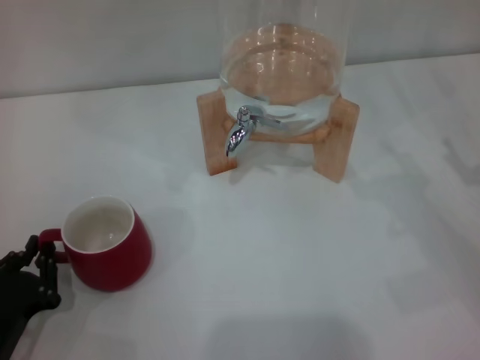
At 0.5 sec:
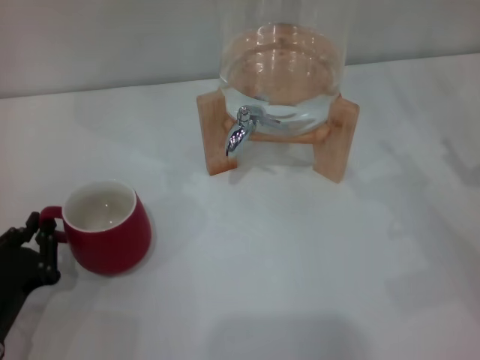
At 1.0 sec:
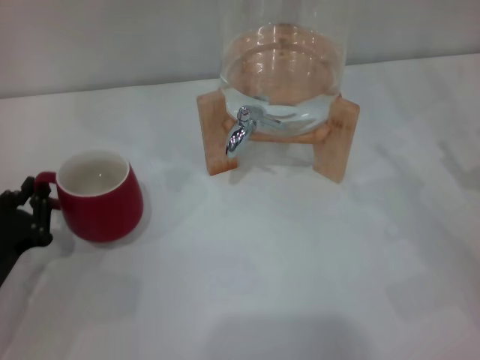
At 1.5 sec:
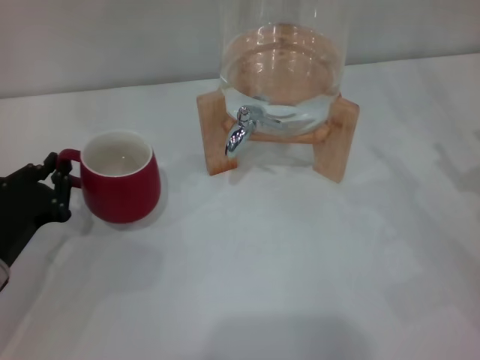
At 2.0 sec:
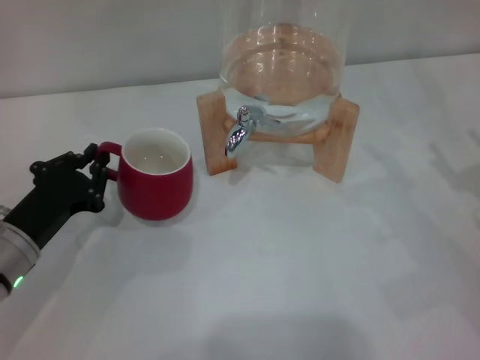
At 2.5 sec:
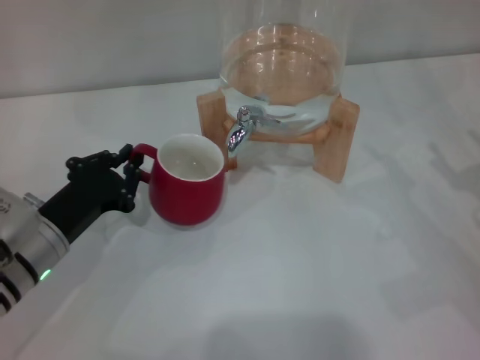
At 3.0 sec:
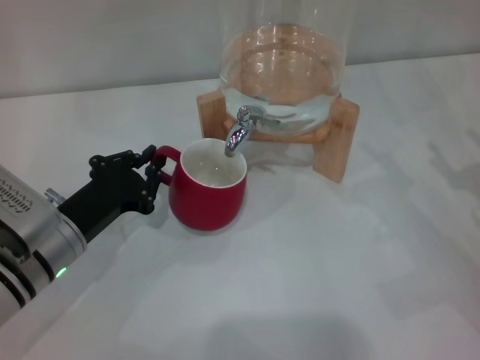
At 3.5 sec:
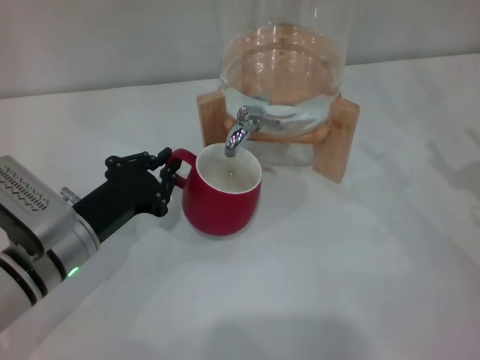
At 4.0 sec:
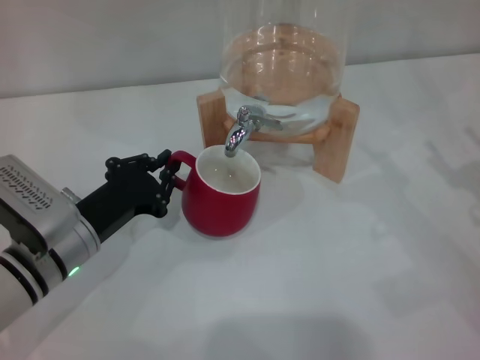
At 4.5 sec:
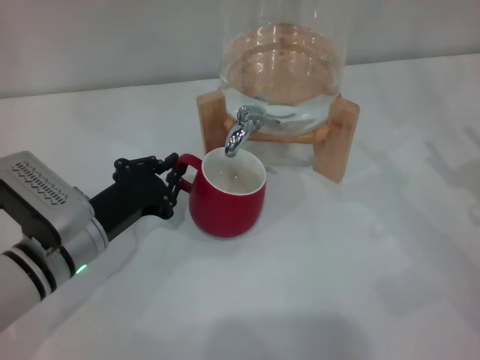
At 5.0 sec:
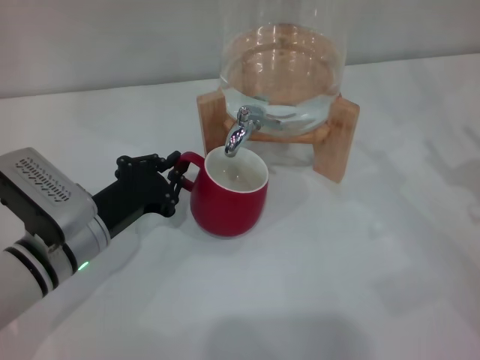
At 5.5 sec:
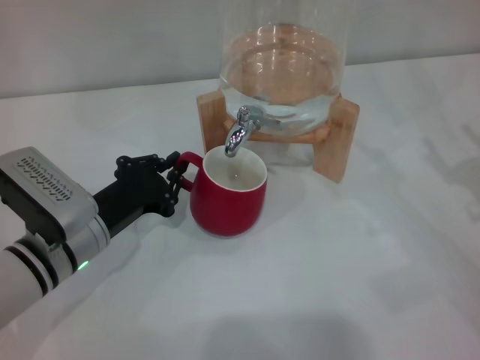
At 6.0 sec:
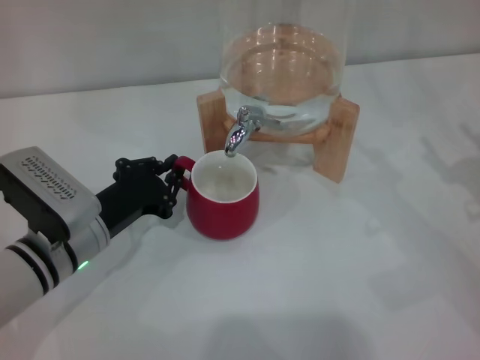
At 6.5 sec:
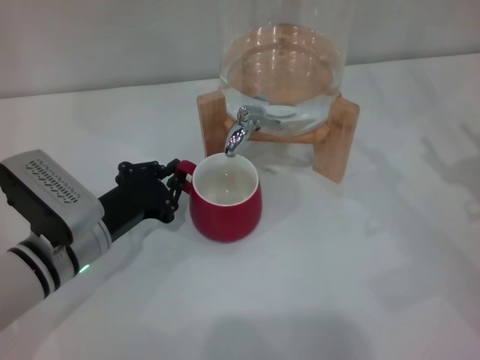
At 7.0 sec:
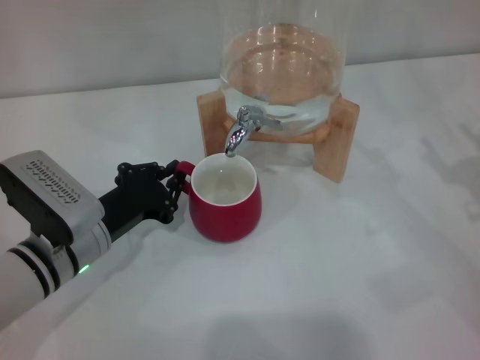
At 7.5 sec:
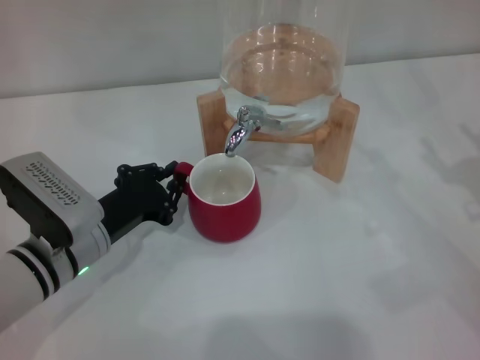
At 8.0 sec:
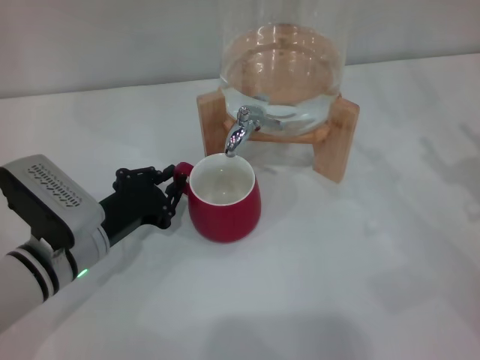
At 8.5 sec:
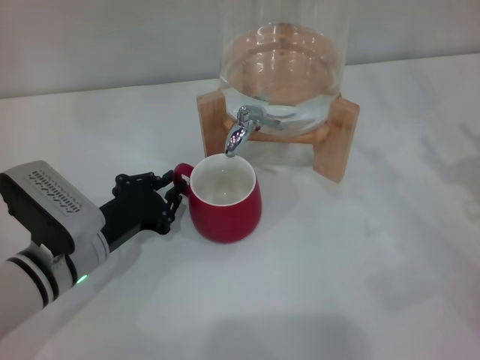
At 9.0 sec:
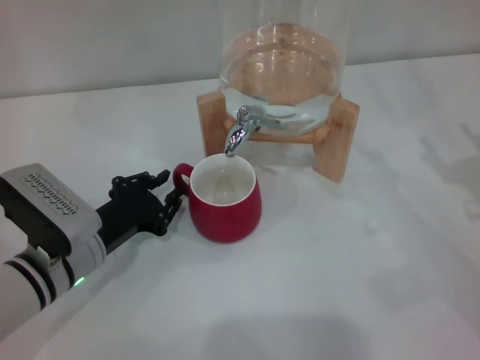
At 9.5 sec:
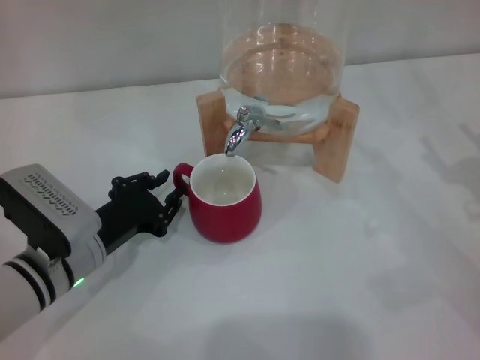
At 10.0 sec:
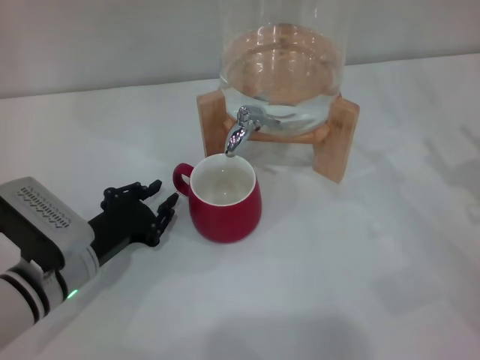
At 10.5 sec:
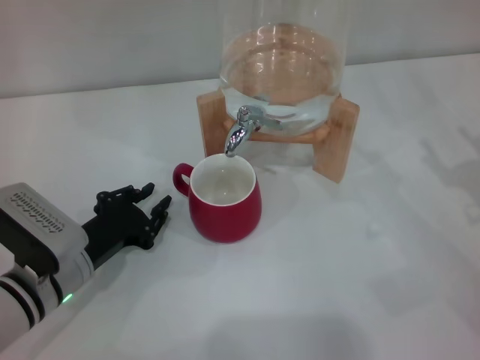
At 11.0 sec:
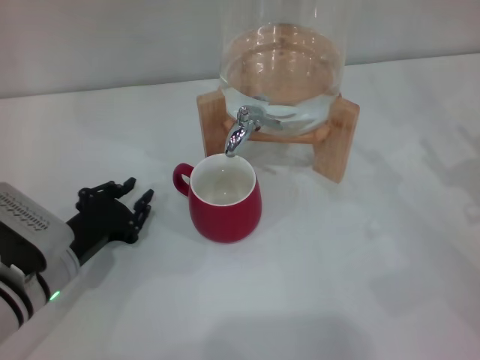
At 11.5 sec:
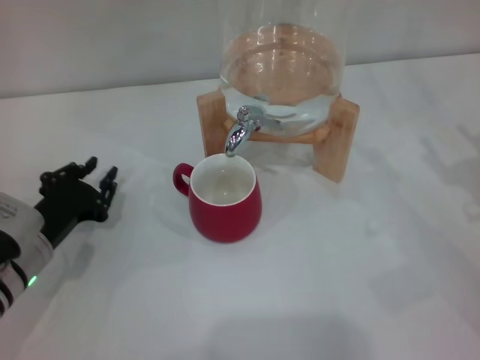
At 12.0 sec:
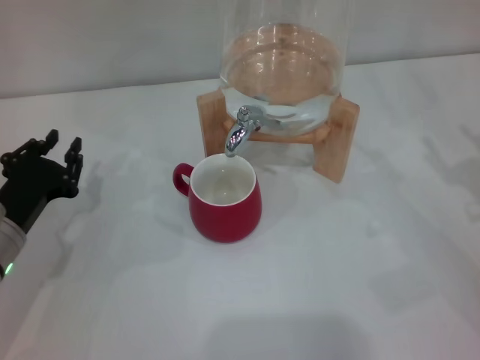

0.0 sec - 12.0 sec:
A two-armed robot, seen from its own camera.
Task of the whole recording: the left gripper pick up the red cup and place it horizontally under the faucet, the right gripper turn on the faucet to fill the cup, and then turn off the faucet.
Step, 0.0 sec - 9.5 sec: Move the cup beneath the water dispenser nozzle with the left gripper.
0.0 sec - 2.0 sec: The left gripper travels forward by roughly 10 cm.
2.0 sec - 4.0 sec: The left gripper travels to the right by approximately 5 cm.
4.0 sec - 6.0 sec: The grippers make only small movements.
6.0 sec - 8.0 sec: Both grippers stay put.
8.0 sec - 10.0 sec: The grippers stay close to where they were, moving slightly.
10.0 sec - 12.0 sec: The left gripper goes some 5 cm to the left.

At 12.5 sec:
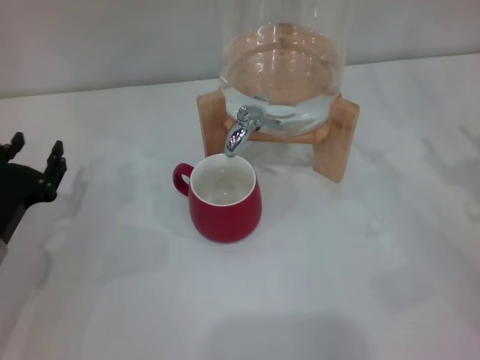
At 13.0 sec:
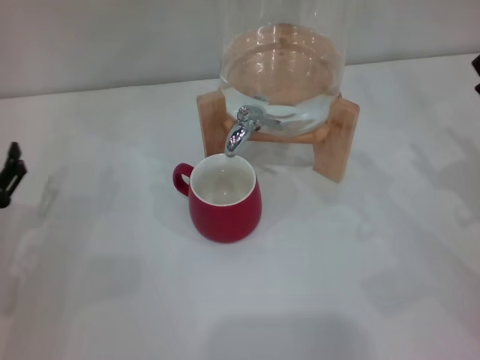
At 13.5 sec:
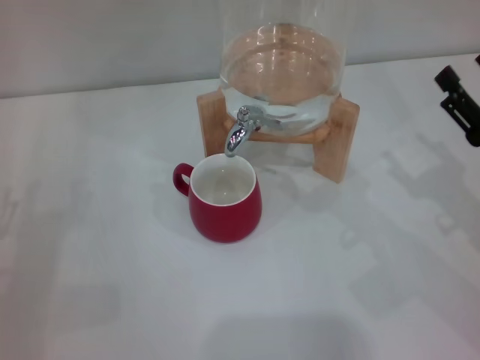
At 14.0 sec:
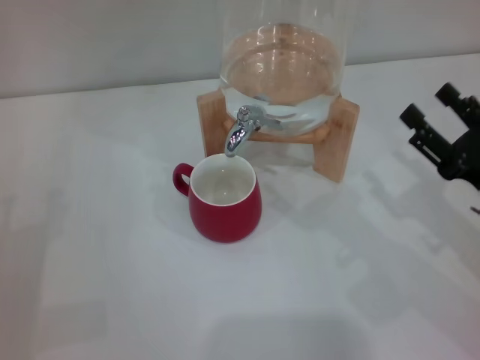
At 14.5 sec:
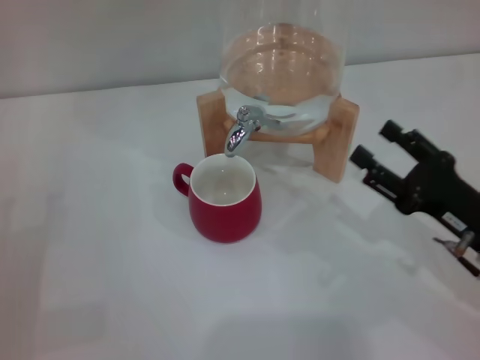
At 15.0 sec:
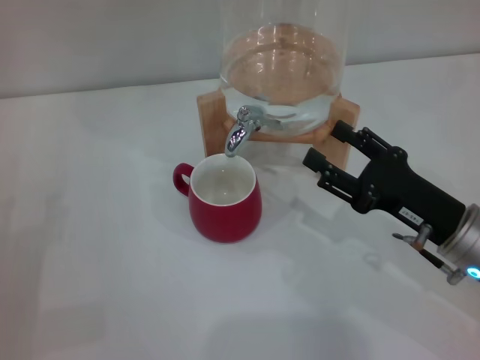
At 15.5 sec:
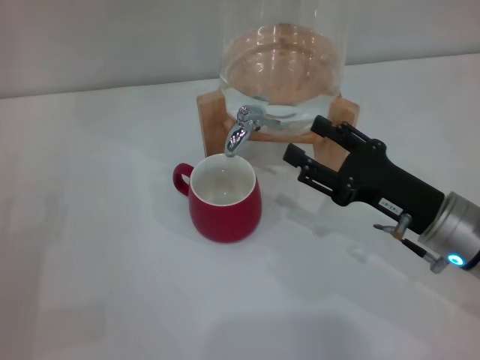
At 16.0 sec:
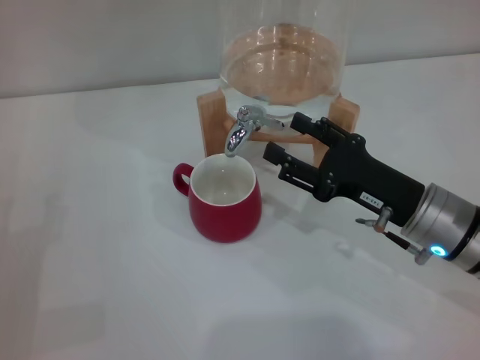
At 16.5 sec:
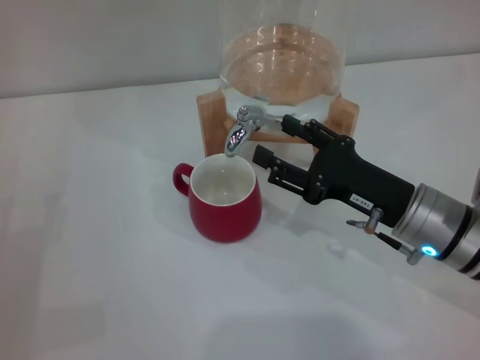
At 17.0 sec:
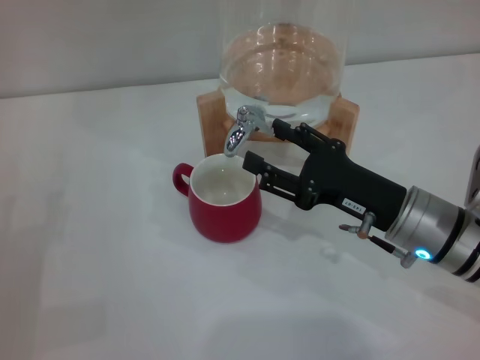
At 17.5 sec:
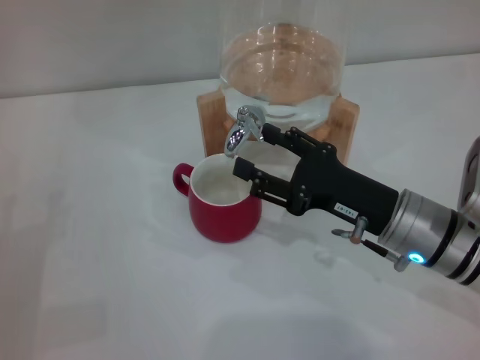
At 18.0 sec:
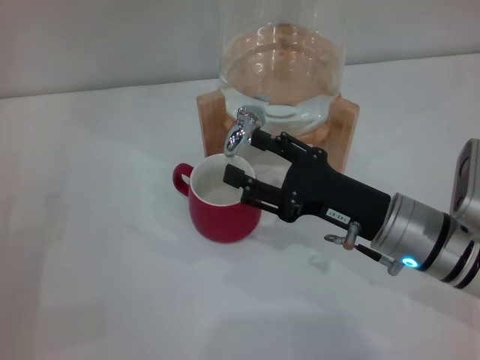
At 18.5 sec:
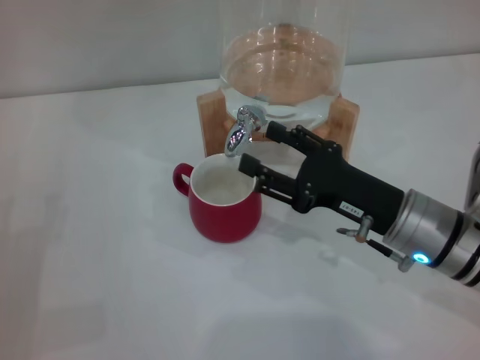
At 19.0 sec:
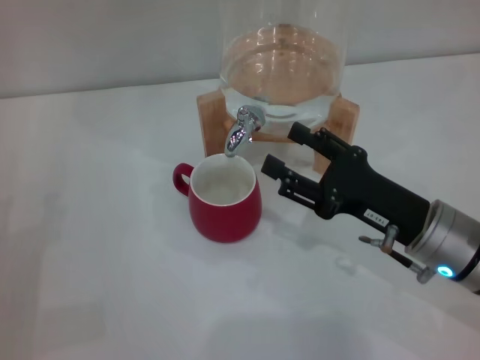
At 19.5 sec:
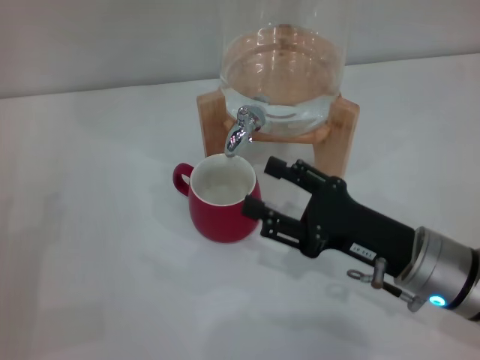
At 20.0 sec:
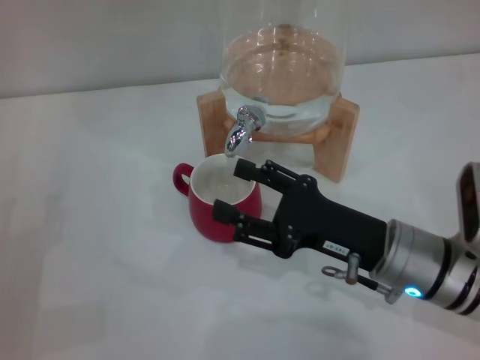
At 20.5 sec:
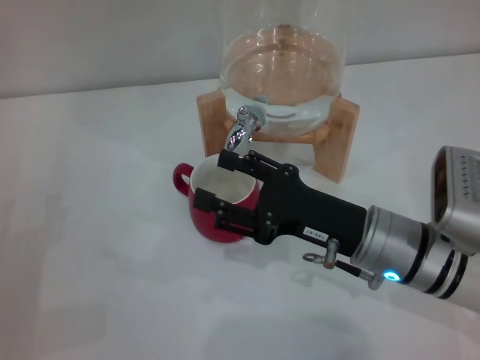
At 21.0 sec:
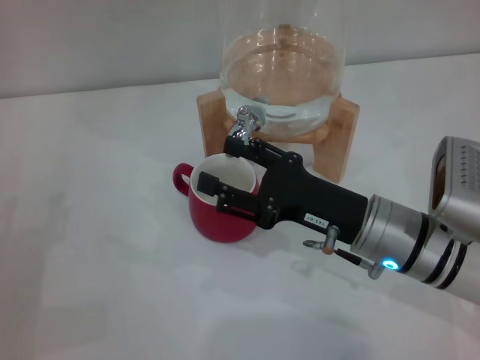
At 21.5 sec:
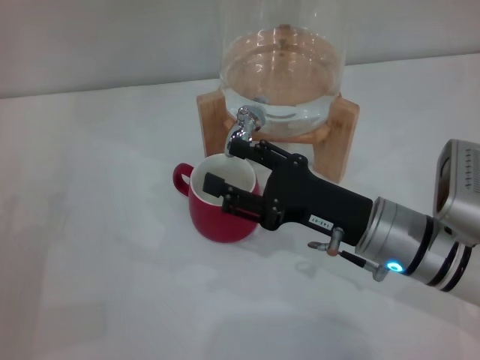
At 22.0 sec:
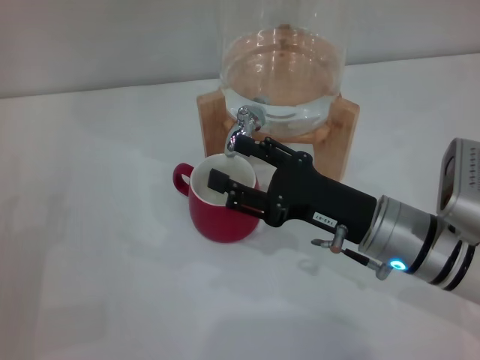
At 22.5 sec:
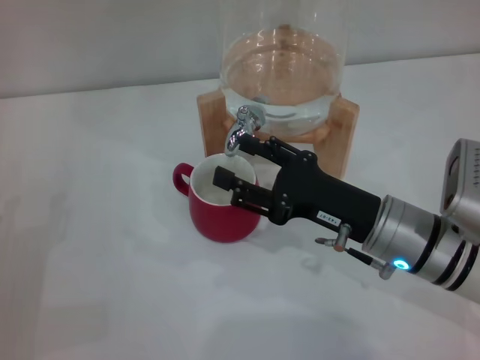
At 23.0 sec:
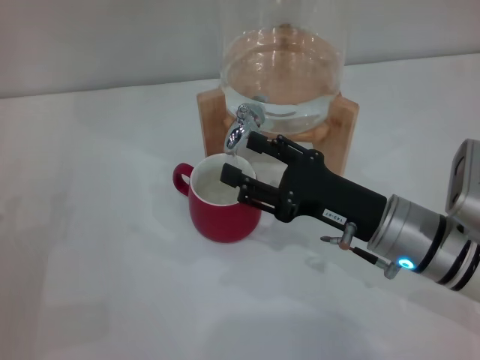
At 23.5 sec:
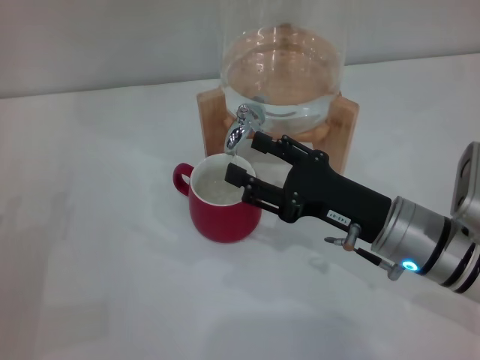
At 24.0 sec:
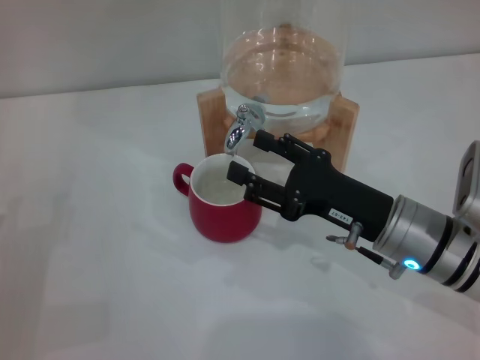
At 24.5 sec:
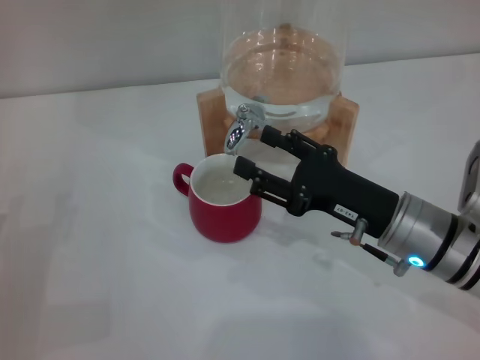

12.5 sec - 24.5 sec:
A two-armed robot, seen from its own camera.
Task of the whole recording: the left gripper pick up the red cup and place it horizontally under the faucet, the right gripper turn on the faucet to fill the cup, and then turn off the faucet.
Step, 12.5 sec - 18.0 sec: Open the dispenser valve and fill the cup with water with the right gripper.
12.5 sec - 14.5 sec: The left gripper moves backward and to the left, roughly 10 cm, and opens up, while the right gripper moves to the left, some 5 cm.
14.5 sec - 16.5 sec: The right gripper moves to the left, about 5 cm.
16.5 sec - 22.5 sec: There are only small adjustments of the grippers.
22.5 sec - 24.5 sec: Both grippers stay put.

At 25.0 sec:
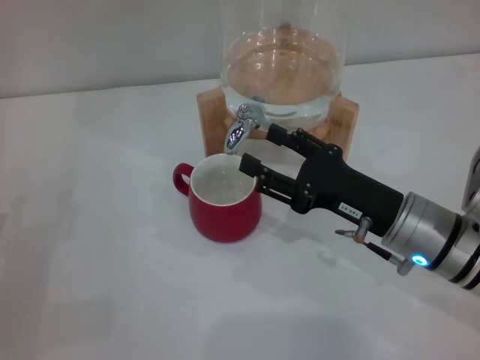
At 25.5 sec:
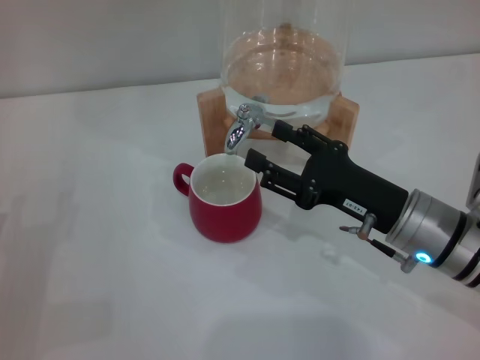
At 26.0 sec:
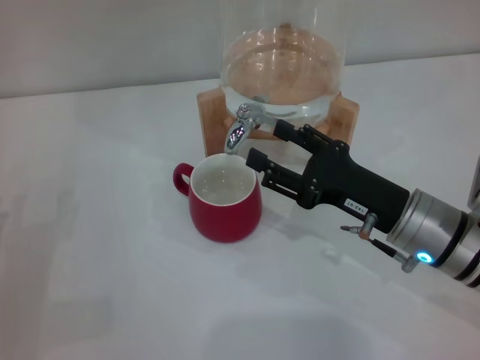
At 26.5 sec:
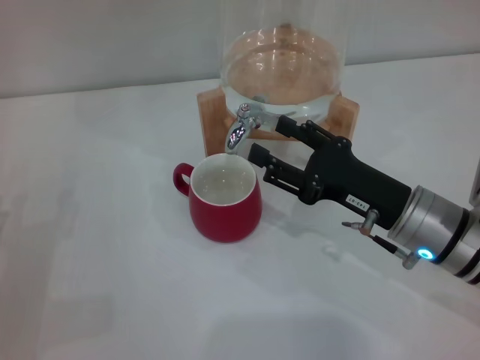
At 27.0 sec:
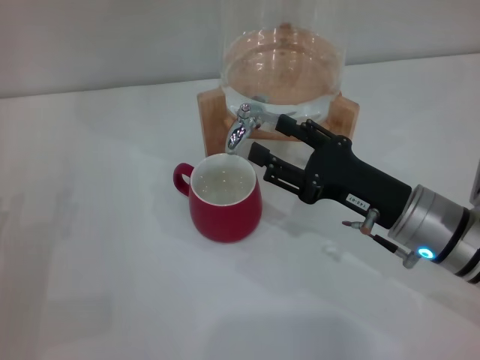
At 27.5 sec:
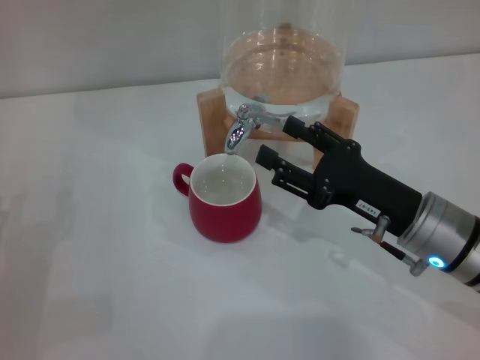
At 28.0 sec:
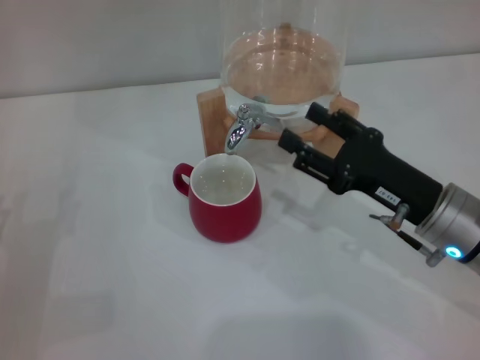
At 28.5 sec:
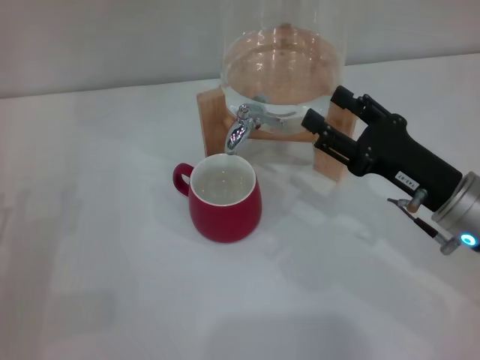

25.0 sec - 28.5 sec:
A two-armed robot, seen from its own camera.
Task of the whole recording: the left gripper pick up the red cup and place it horizontally under the faucet, the right gripper turn on the faucet to fill the cup, and then turn off the faucet.
Step, 25.0 sec - 27.5 sec: Close the dispenser valve with the right gripper.
25.0 sec - 27.0 sec: Neither gripper changes place.
27.0 sec - 28.5 sec: The grippers make only small movements.
